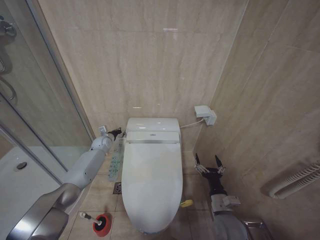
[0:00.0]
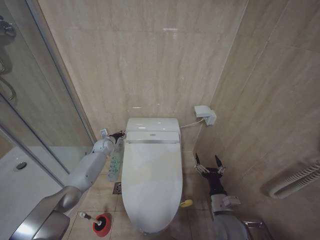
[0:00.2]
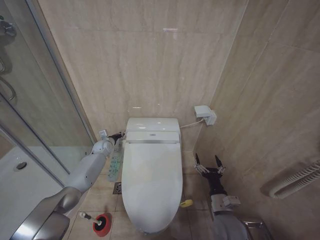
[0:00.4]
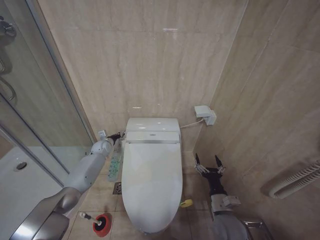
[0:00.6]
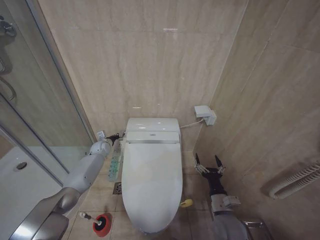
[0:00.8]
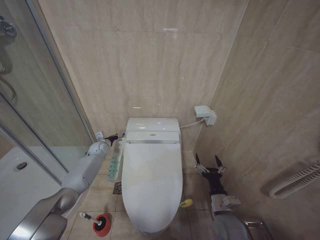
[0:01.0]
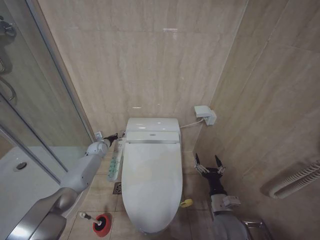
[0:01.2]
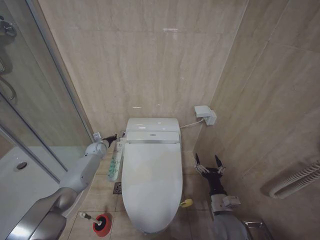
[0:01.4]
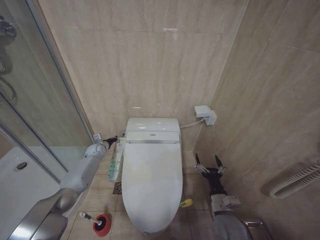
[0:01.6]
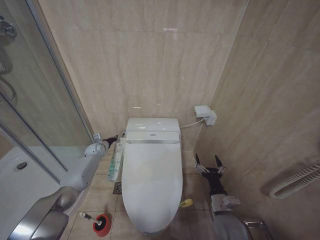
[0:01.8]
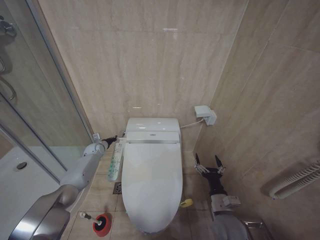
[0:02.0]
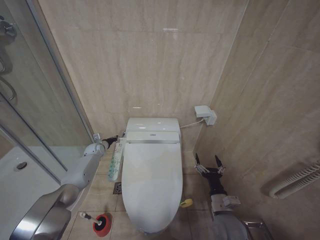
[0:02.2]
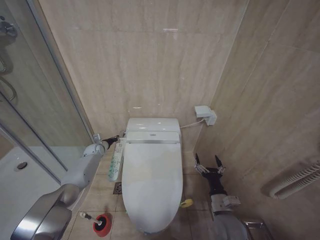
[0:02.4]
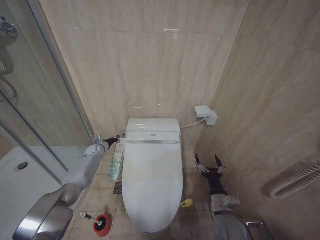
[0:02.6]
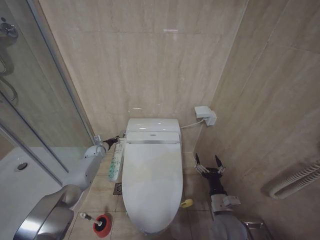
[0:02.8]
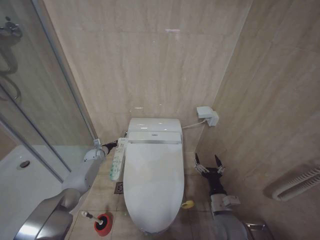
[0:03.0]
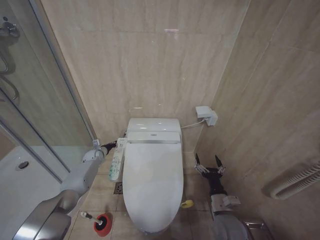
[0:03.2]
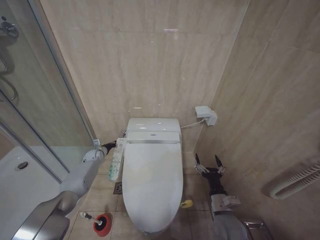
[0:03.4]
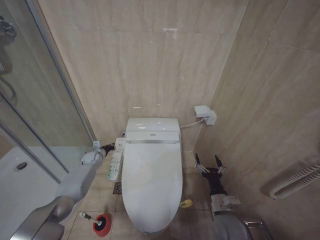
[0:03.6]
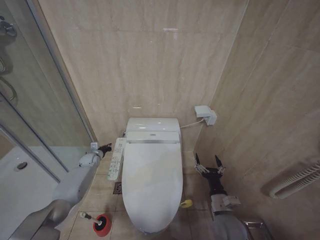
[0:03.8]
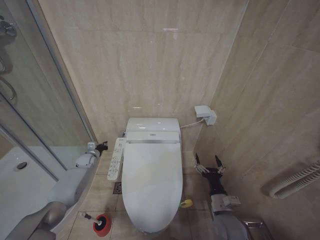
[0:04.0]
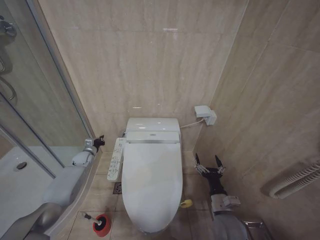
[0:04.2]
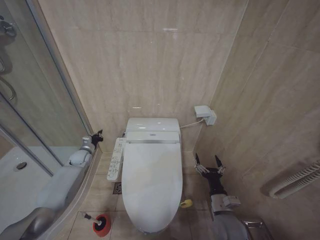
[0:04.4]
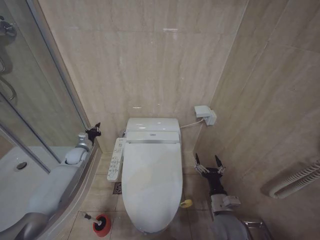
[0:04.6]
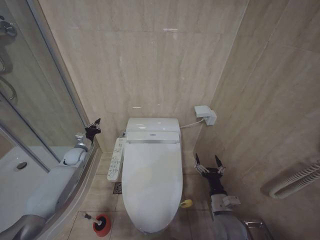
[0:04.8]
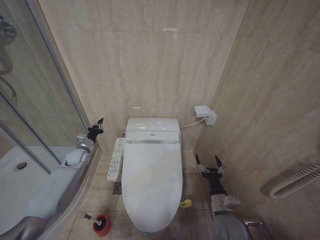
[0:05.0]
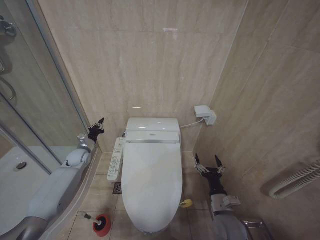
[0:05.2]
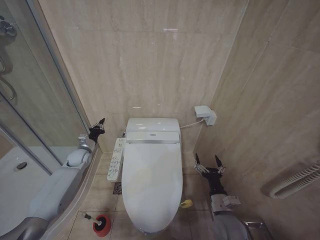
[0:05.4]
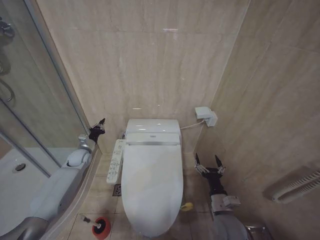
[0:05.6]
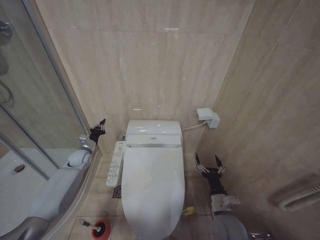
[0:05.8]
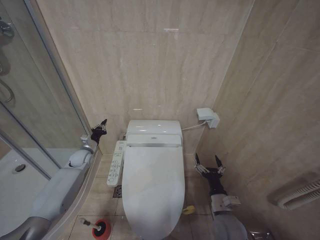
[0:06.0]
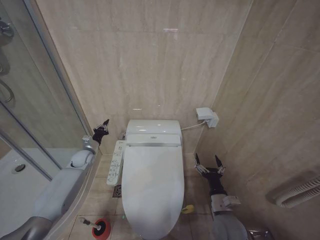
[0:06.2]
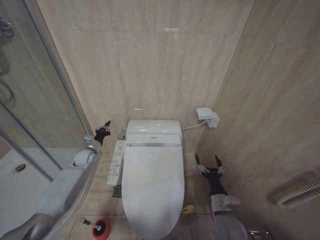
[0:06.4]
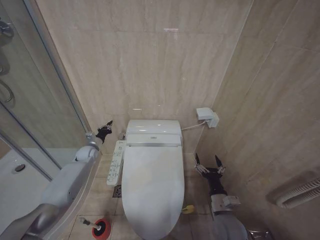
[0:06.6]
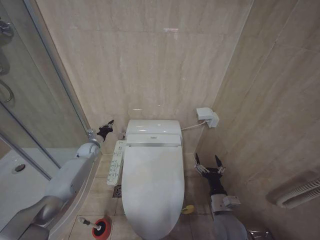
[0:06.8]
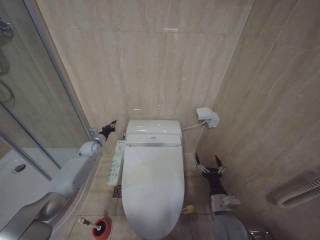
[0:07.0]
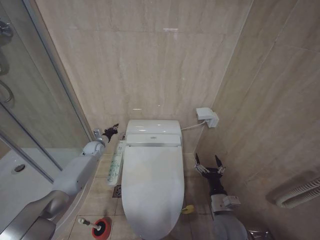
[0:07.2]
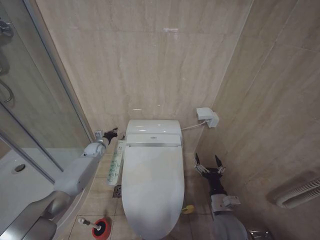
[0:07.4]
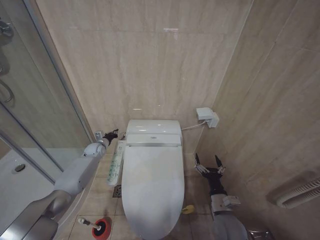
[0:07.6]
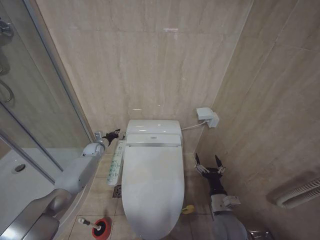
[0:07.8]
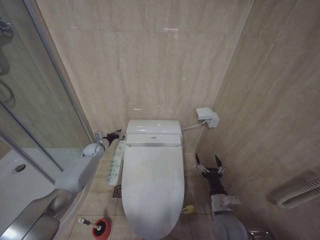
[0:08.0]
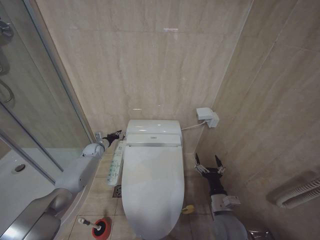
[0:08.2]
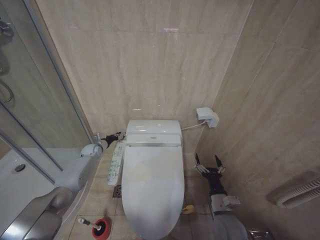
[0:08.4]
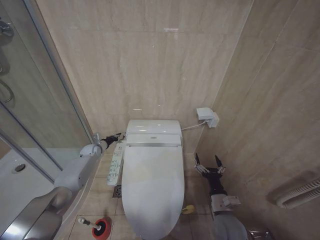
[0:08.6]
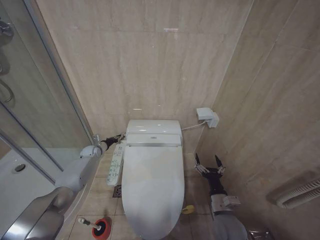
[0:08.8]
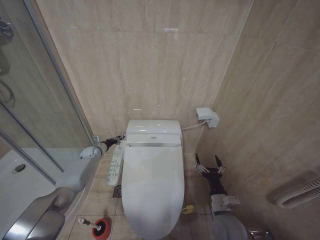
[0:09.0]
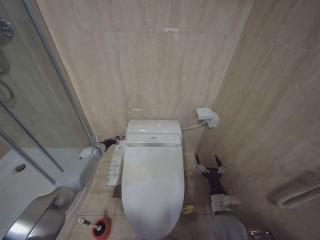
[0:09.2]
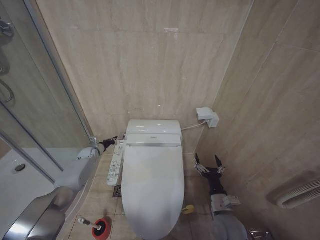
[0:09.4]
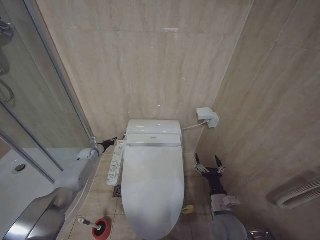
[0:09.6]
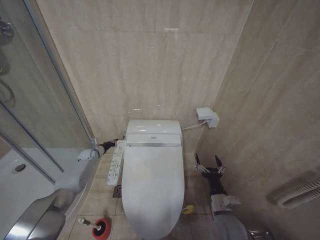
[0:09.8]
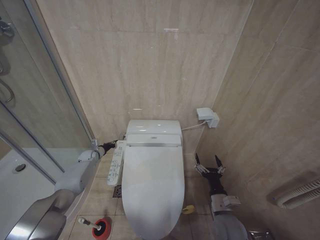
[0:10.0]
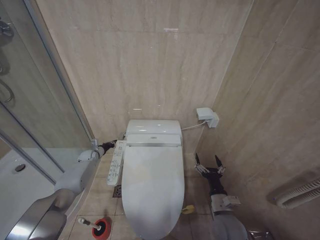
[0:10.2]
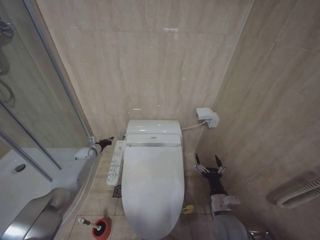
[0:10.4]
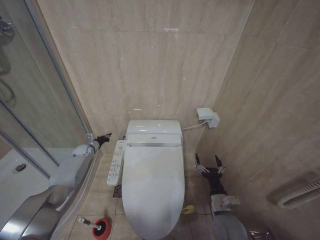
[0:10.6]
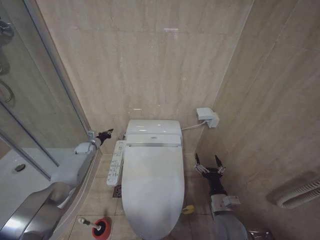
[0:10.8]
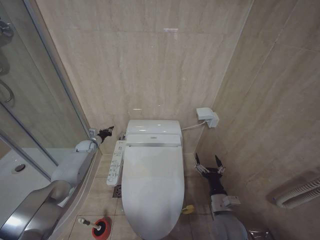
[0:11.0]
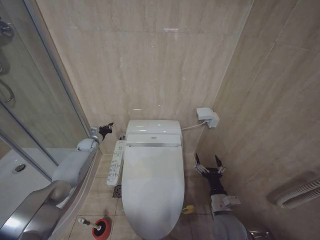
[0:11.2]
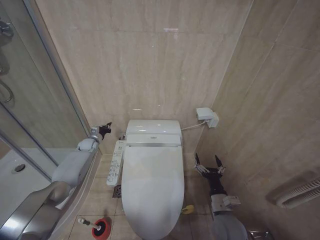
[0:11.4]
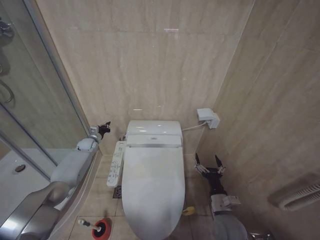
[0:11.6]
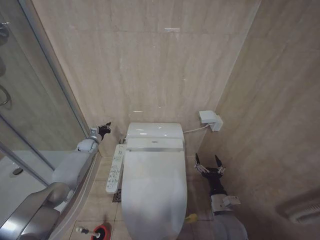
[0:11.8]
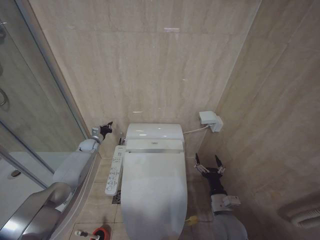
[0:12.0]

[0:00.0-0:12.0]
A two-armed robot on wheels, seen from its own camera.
Task of the whole recording: Open the toilet lid, clean the toilet bowl with a toilet brush, close the toilet lid, and flush.
0:00.0 to 0:01.6: The left gripper shifts by approximately 5 cm.
0:01.6 to 0:03.0: The grippers make only small movements.
0:03.0 to 0:04.4: The left gripper moves some 5 cm.
0:06.0 to 0:07.6: The left gripper is displaced forward by about 5 cm.
0:07.6 to 0:09.0: There are only small adjustments of the grippers.
0:09.0 to 0:10.4: The grippers make only small movements.
0:10.4 to 0:12.0: The left gripper heads upward, covering roughly 5 cm.

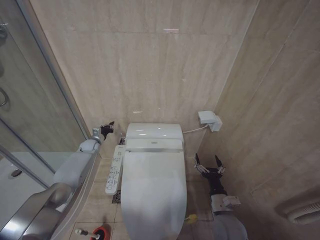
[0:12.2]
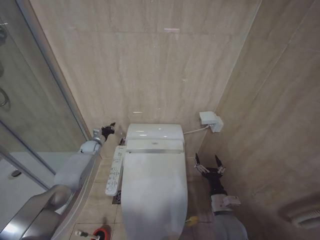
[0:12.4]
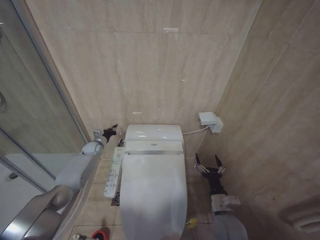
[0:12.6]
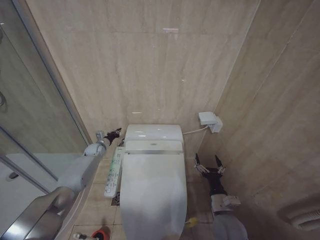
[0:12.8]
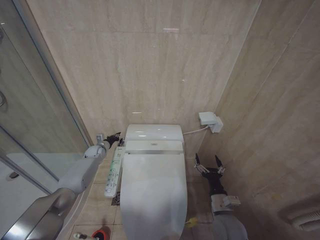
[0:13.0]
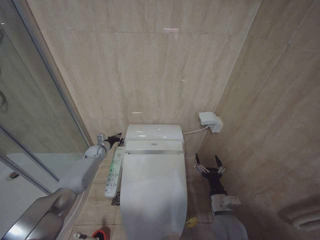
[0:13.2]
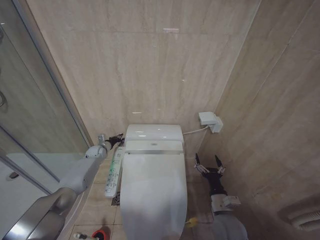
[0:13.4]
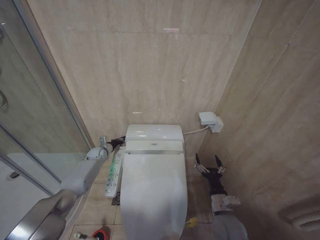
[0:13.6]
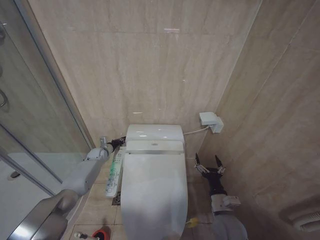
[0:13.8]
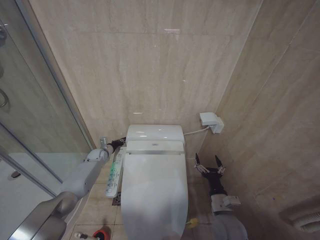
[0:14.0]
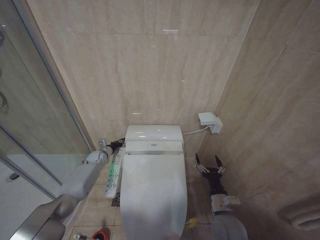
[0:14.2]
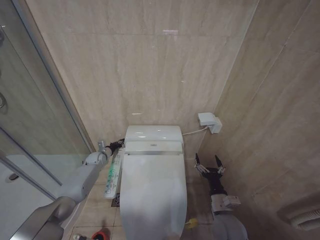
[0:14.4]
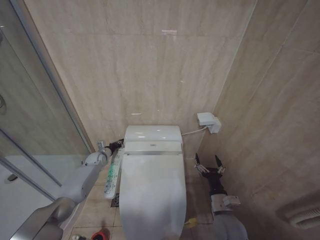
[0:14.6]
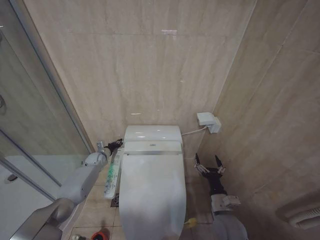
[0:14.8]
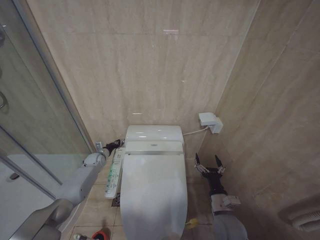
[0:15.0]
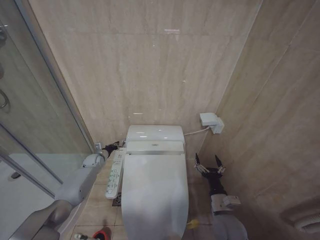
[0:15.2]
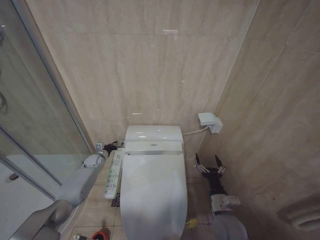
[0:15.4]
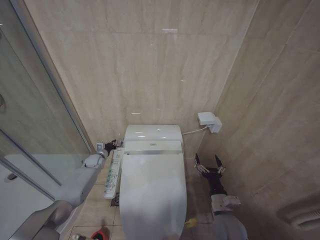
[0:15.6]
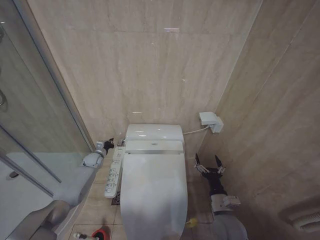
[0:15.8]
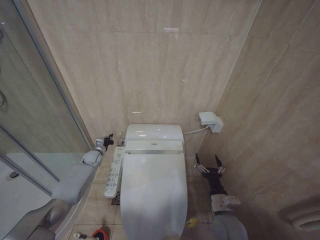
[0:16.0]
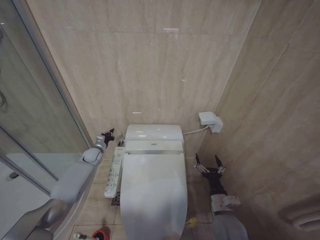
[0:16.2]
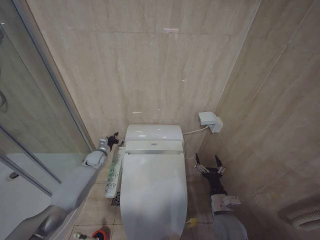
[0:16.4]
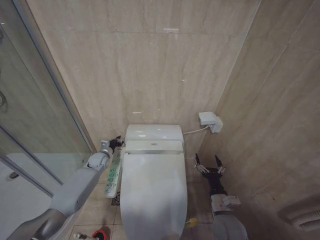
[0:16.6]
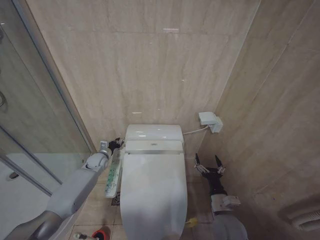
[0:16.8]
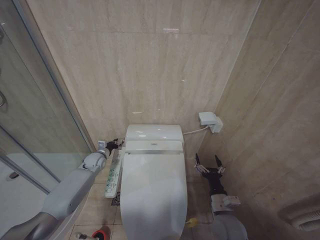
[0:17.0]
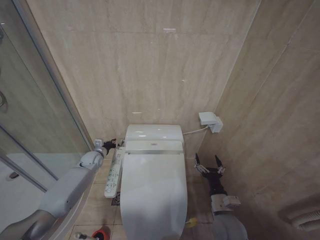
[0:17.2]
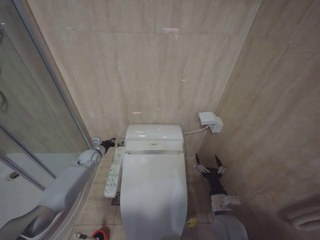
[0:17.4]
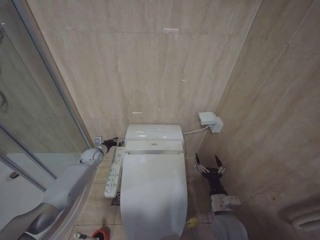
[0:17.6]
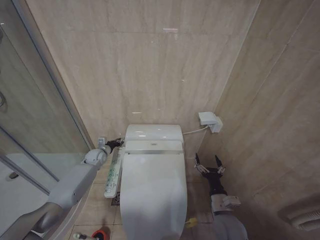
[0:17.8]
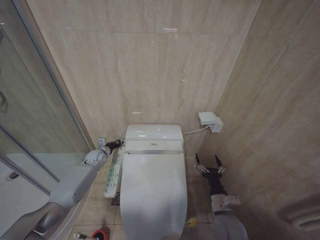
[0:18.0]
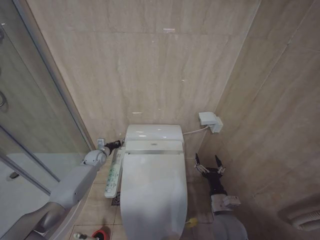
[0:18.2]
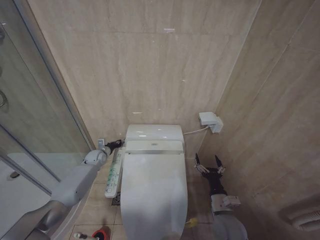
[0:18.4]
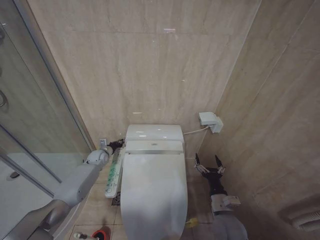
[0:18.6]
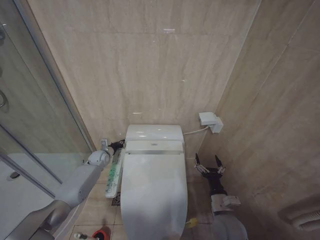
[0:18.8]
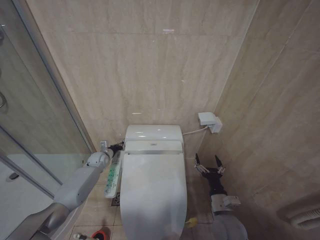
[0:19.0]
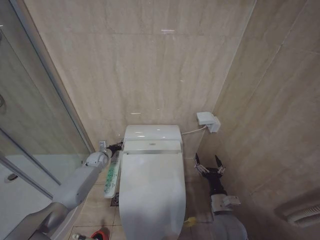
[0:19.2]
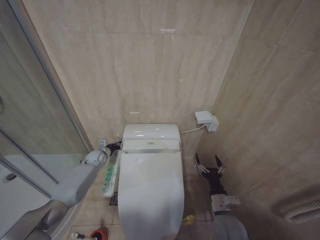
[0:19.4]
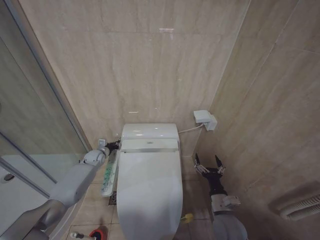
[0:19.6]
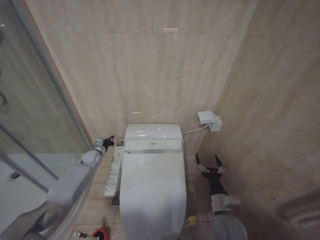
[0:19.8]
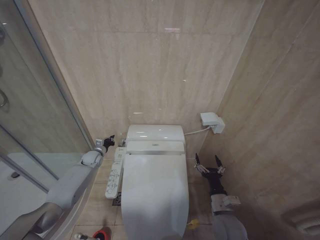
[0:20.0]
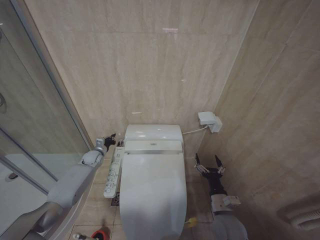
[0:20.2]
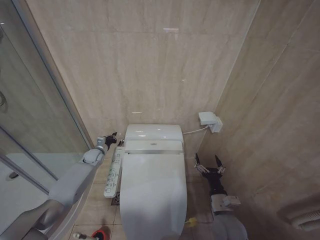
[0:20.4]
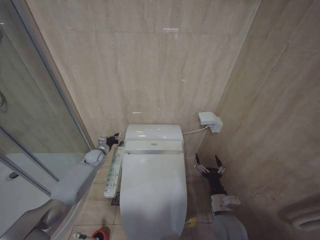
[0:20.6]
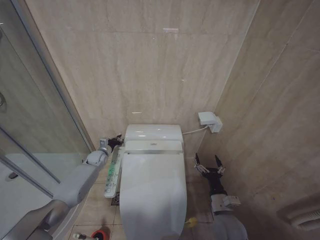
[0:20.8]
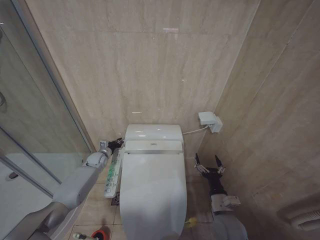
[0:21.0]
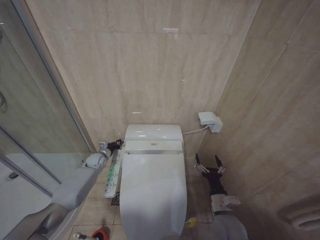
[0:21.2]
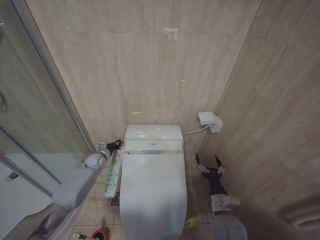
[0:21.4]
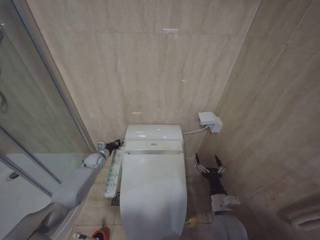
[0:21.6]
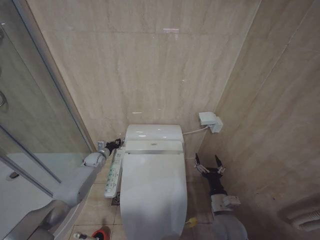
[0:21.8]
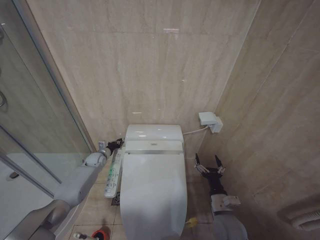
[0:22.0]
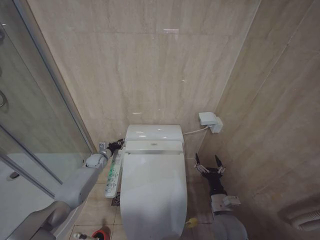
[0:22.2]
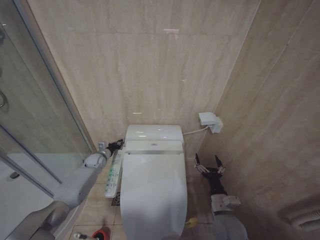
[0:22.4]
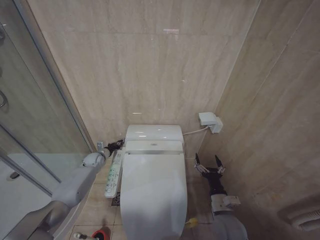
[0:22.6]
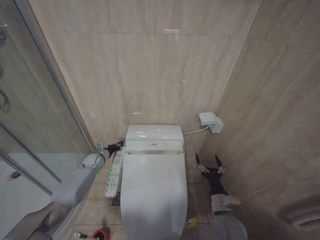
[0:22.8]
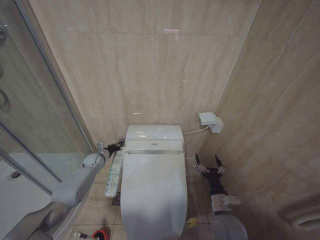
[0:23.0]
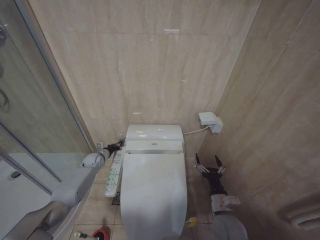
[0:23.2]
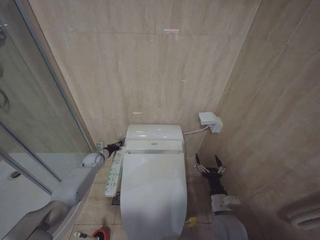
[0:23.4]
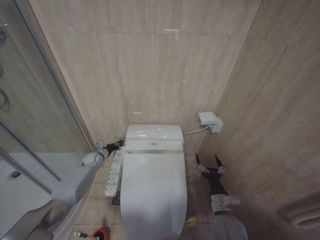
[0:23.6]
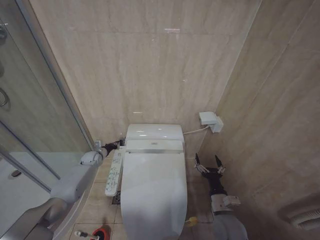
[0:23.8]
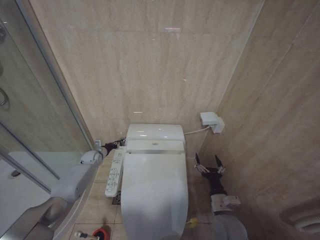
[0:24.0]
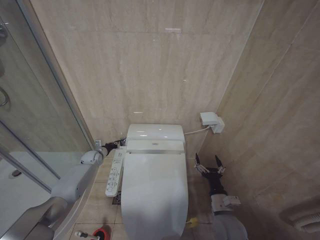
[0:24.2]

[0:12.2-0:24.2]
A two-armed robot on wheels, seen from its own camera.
Task of the whole recording: Open the toilet lid, clean the toilet bowl with a toilet brush, close the toilet lid, and flush.
0:12.2 to 0:13.8: The left gripper heads downward, covering approximately 5 cm.
0:13.8 to 0:15.2: The grippers stay close to where they were, moving slightly.
0:15.2 to 0:16.6: The left gripper moves some 5 cm.
0:16.6 to 0:18.2: The grippers make only small movements.
0:18.2 to 0:21.2: The grippers stay close to where they were, moving slightly.
0:22.6 to 0:24.2: The grippers move only a little.
